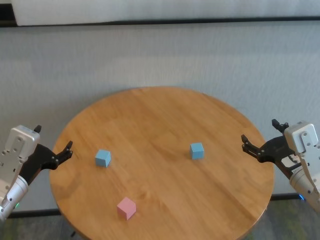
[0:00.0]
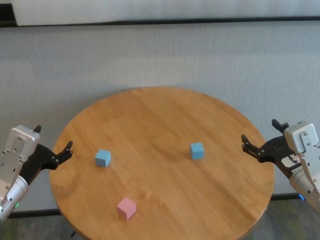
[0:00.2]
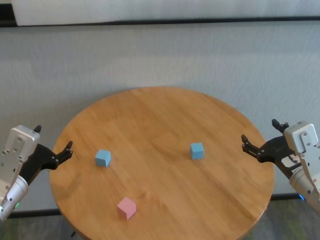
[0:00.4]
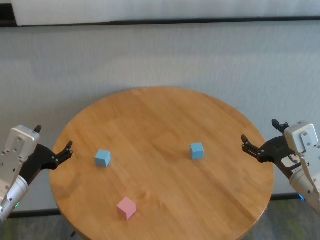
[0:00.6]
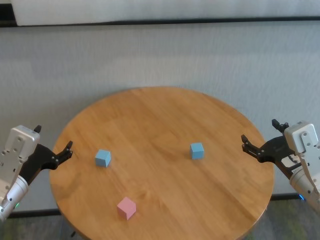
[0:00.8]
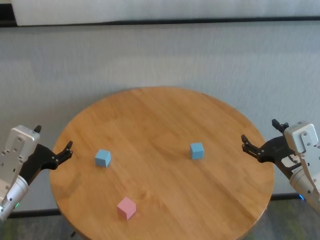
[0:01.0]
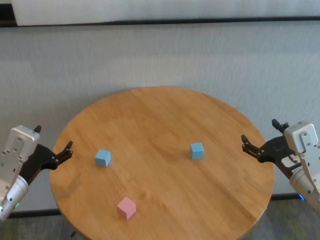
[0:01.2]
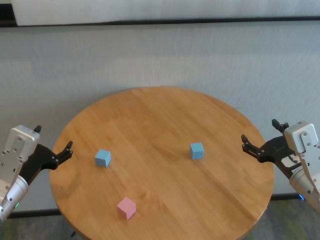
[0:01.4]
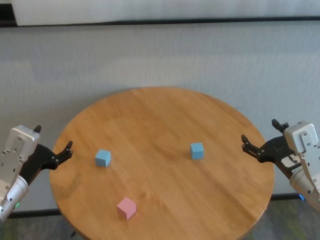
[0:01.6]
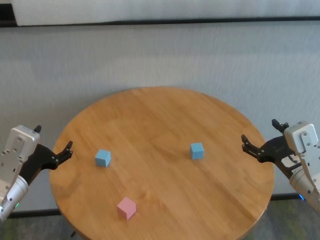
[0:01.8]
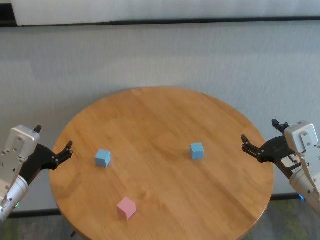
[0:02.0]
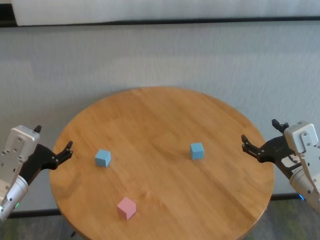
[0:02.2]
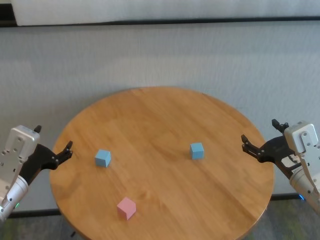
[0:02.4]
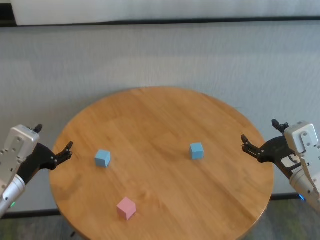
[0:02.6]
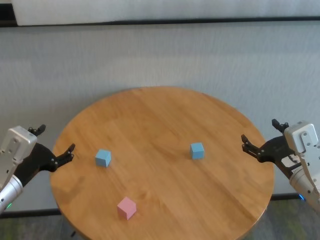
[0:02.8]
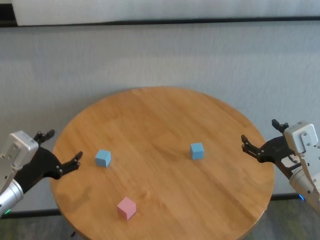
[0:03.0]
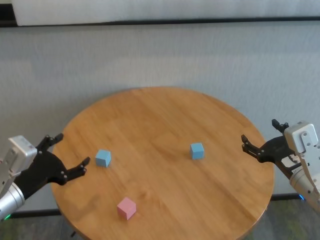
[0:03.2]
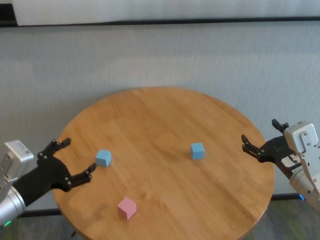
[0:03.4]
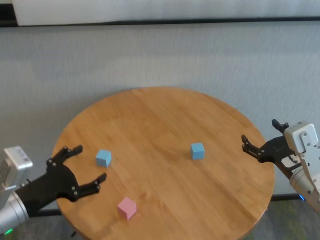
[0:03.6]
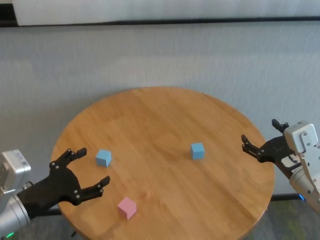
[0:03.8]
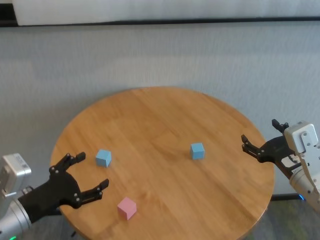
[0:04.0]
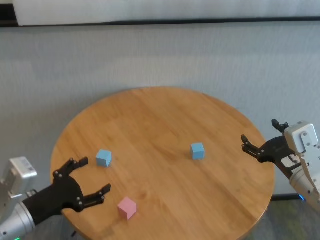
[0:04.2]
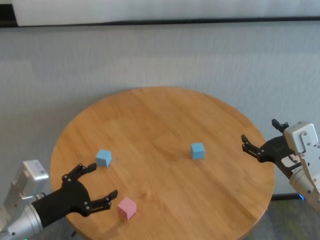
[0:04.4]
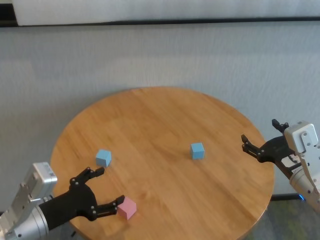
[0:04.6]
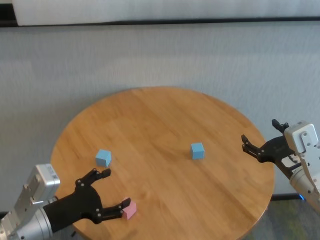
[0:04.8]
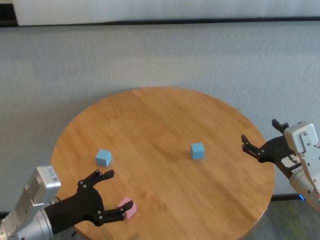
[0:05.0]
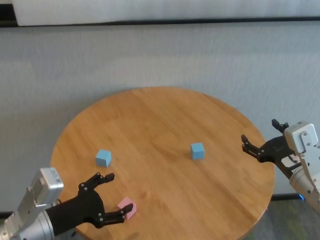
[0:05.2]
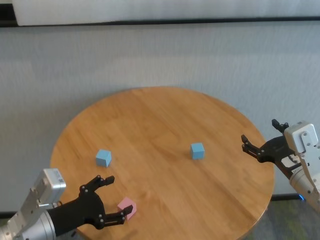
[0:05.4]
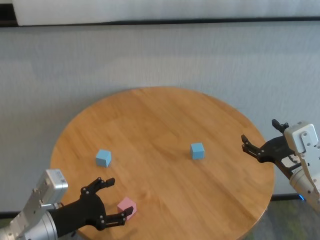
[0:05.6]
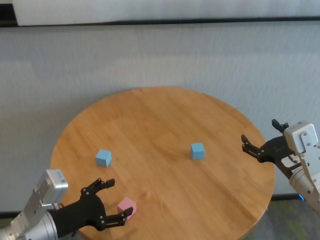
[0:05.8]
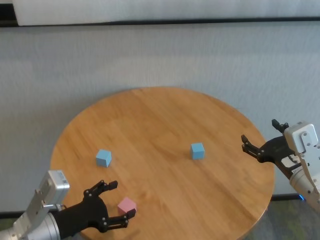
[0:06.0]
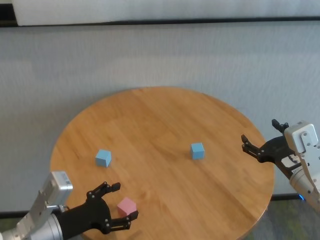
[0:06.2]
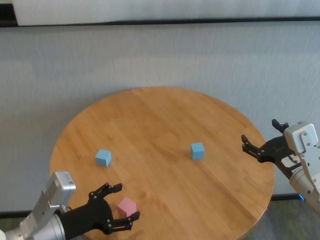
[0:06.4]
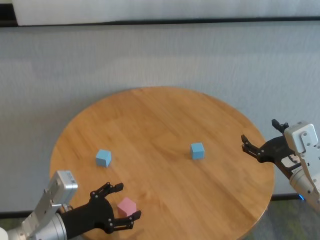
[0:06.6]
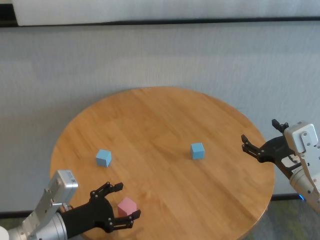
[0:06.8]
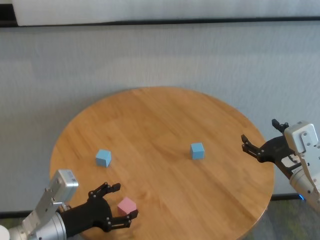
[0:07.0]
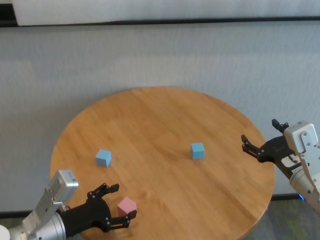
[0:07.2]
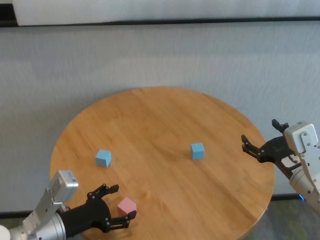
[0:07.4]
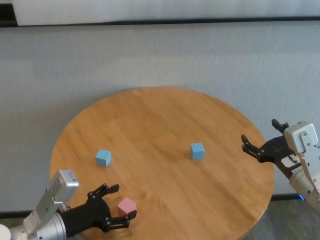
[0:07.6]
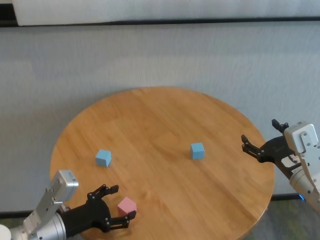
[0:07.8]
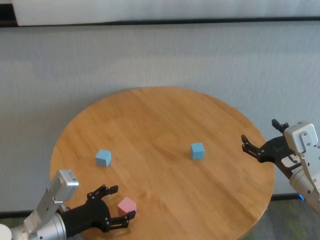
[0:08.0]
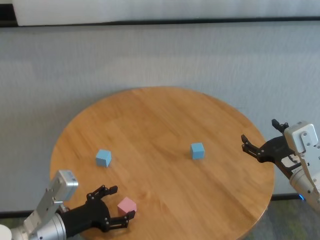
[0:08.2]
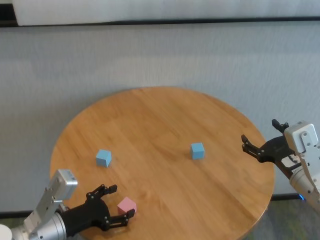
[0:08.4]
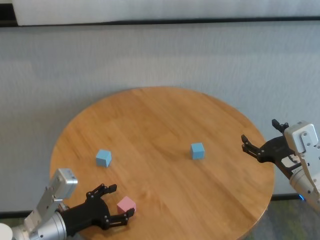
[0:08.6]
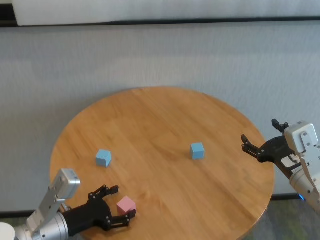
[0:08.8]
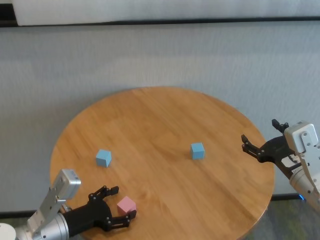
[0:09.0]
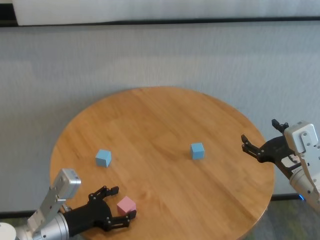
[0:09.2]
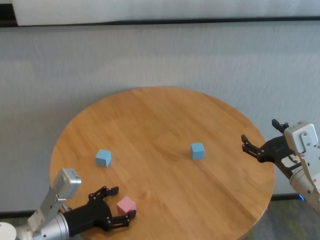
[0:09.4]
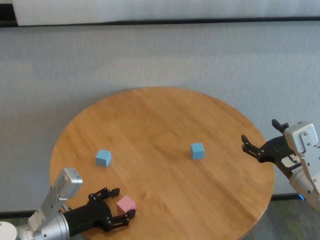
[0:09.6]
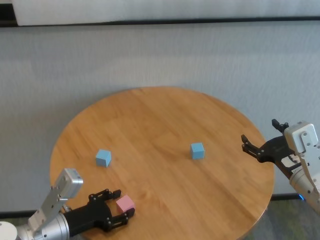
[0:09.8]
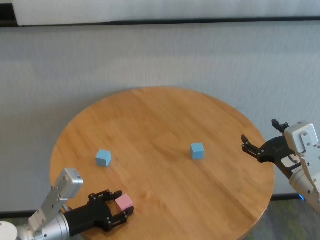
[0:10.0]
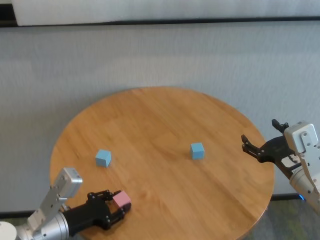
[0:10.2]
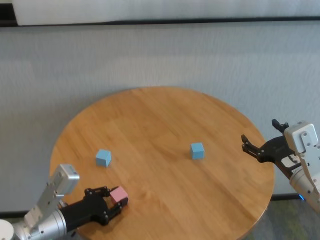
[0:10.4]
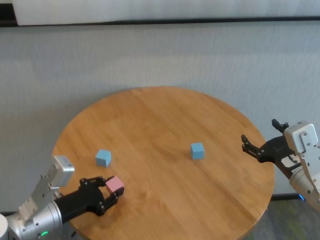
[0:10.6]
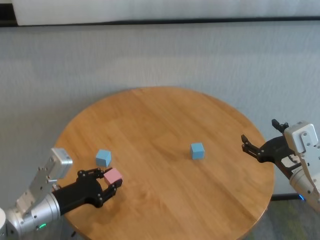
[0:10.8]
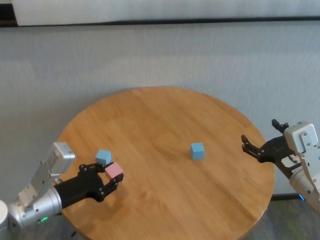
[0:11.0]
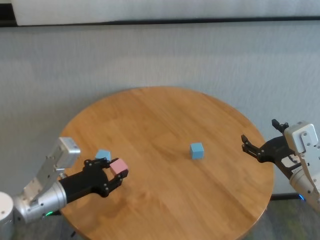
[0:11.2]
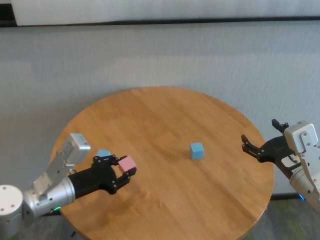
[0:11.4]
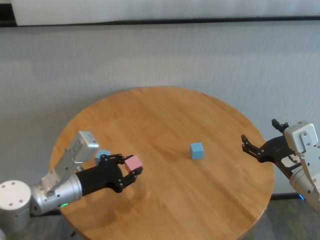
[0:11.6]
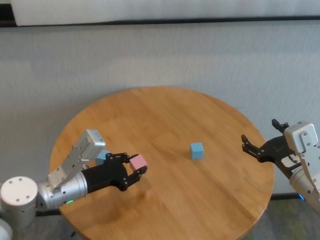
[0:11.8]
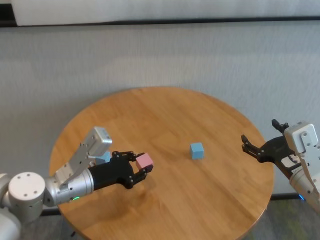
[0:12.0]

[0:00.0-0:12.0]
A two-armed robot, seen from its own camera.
Task of the whole recording: stack building blocks on the table.
Step, 0:00.0 to 0:10.2: Grasp the pink building block with left gripper.

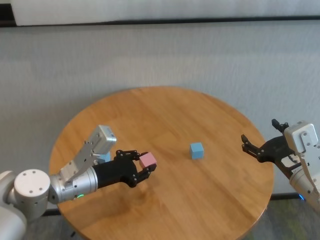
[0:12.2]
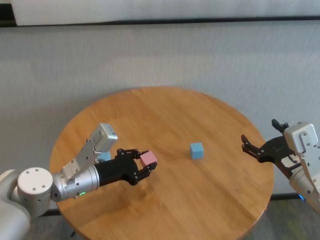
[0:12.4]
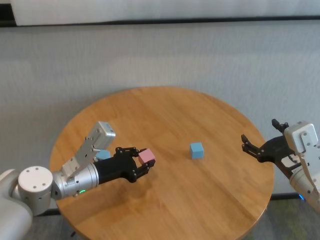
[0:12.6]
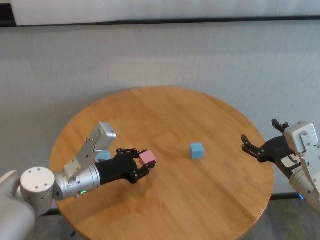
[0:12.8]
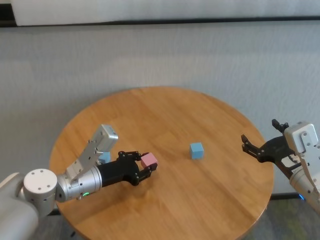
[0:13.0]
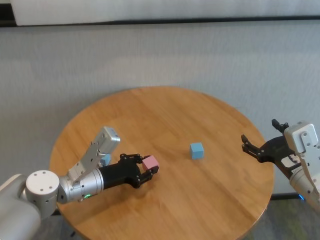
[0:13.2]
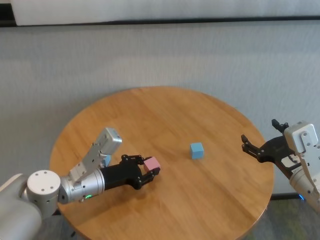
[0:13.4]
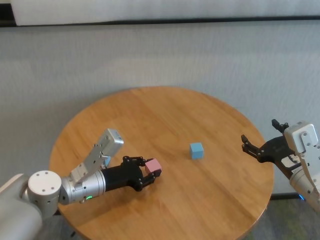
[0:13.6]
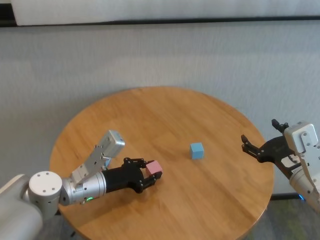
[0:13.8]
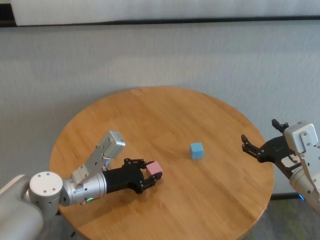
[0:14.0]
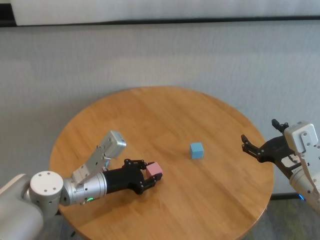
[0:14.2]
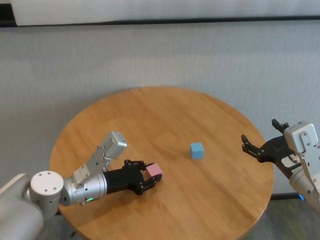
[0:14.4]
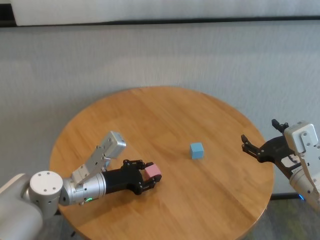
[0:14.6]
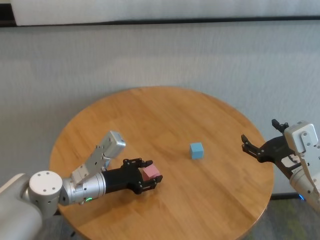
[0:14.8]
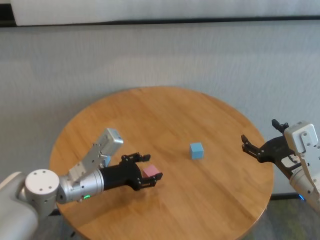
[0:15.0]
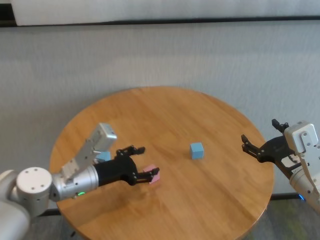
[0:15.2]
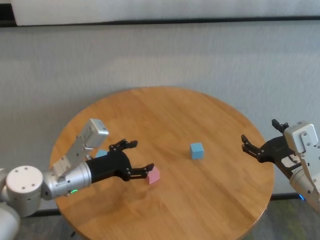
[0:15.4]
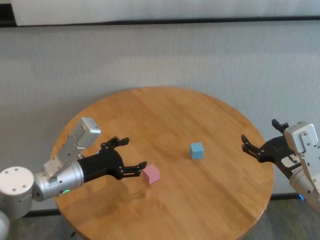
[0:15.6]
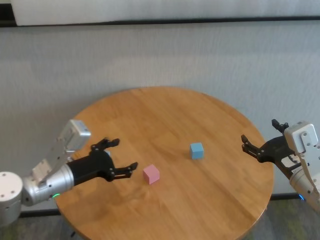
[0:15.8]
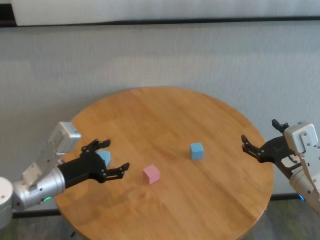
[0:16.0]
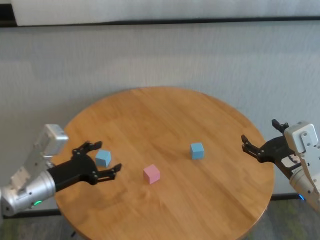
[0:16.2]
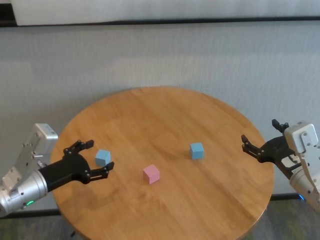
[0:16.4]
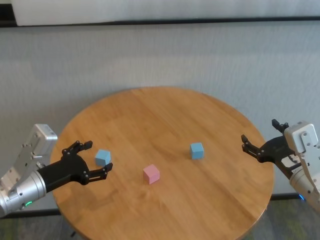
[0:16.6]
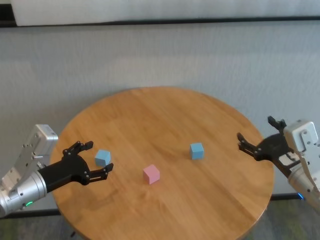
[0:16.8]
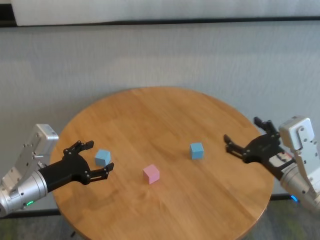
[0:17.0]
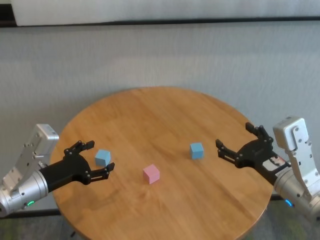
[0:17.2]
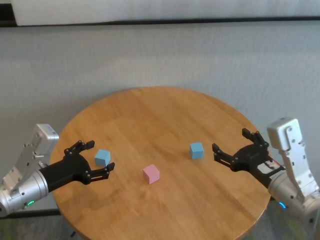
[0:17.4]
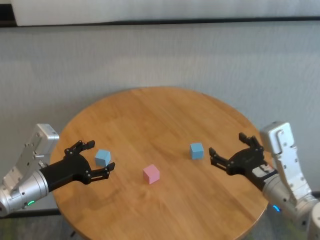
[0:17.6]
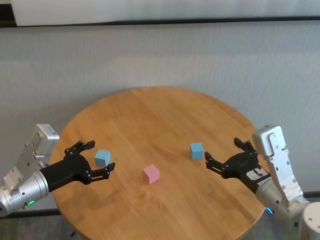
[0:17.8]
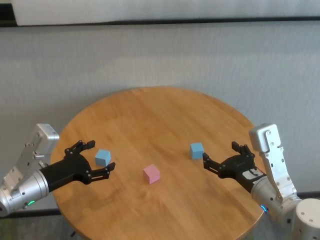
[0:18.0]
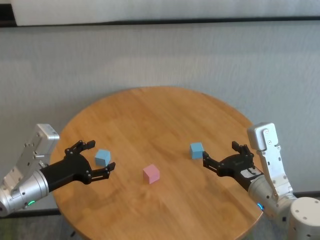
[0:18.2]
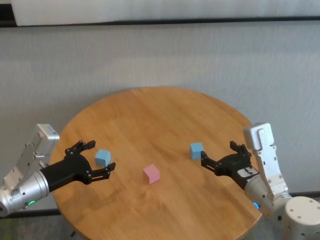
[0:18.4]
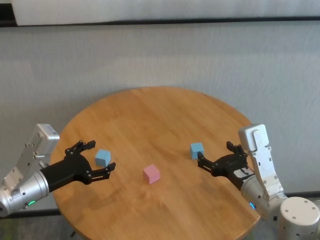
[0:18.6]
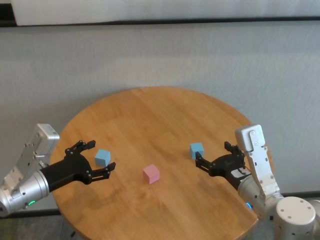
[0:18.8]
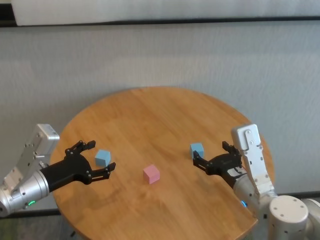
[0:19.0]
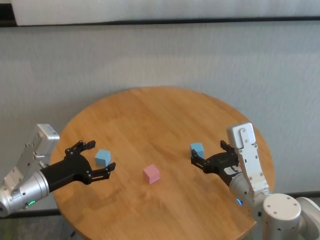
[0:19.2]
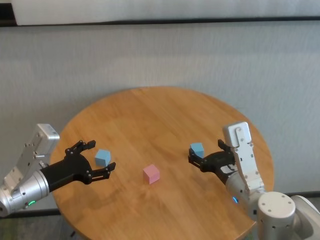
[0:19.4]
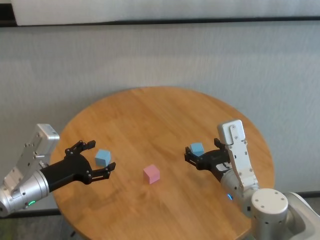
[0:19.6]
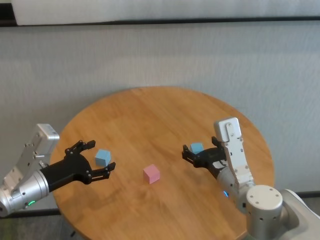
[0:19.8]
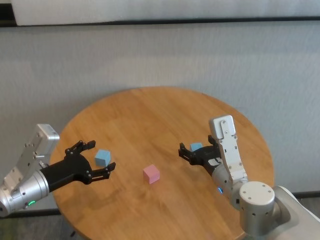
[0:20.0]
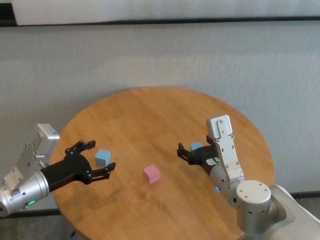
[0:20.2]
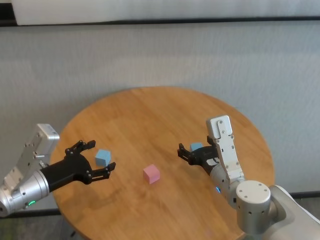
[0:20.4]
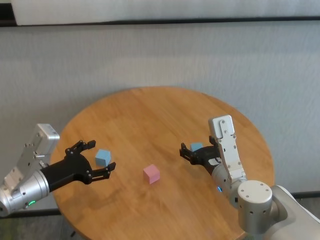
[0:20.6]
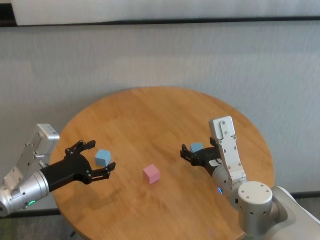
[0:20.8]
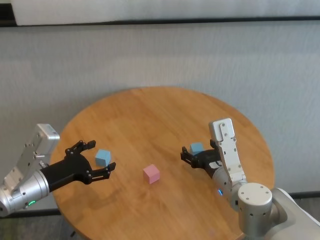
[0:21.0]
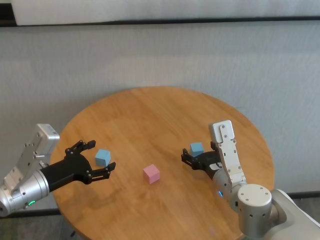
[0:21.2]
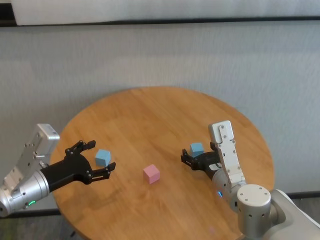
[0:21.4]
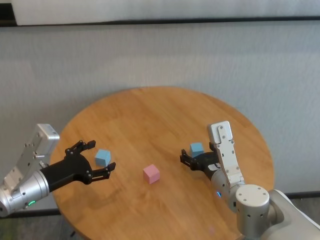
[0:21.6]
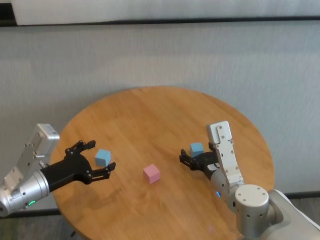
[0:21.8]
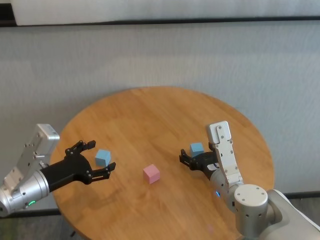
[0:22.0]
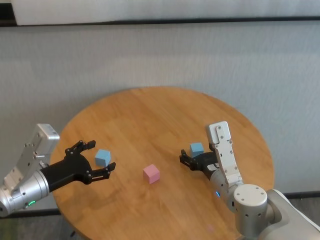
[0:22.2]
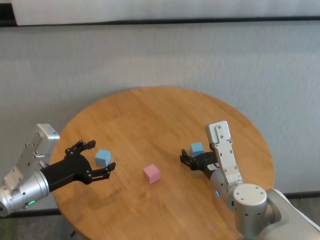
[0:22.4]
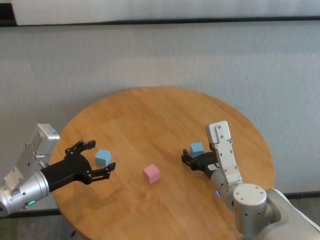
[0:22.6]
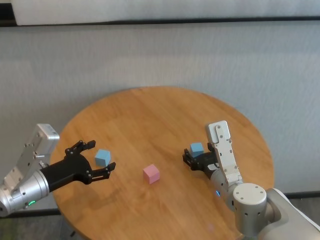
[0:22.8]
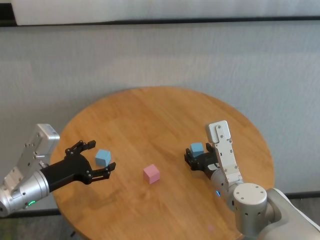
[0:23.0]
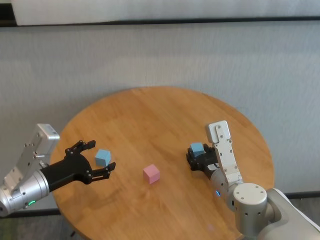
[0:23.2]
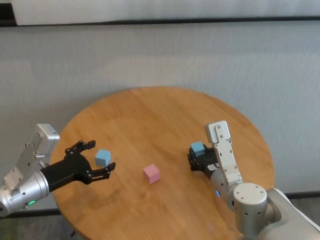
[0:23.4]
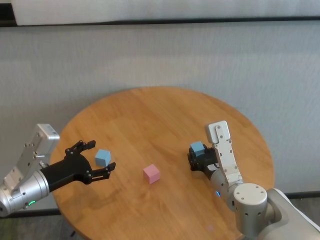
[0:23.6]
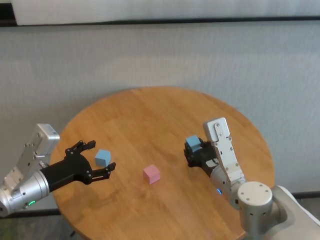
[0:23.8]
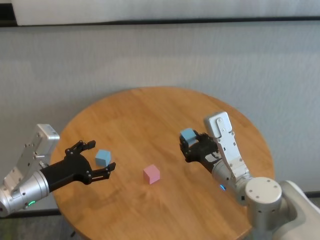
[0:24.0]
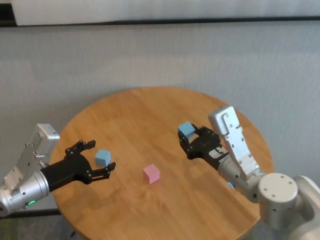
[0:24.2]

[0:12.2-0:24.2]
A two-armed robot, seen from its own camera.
Task of the whole recording: stack building blocks on the table.
Step, 0:12.2 to 0:14.8: Place the pink building block in the center of table with left gripper.
Step, 0:15.0 to 0:23.2: Grasp the blue building block with right gripper.
